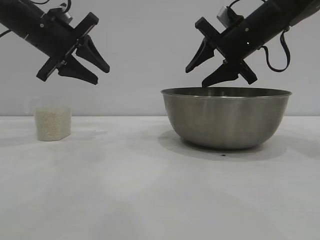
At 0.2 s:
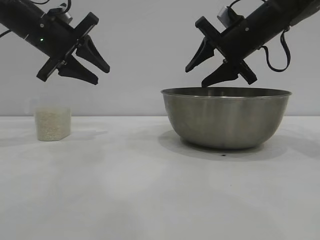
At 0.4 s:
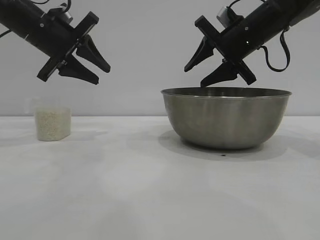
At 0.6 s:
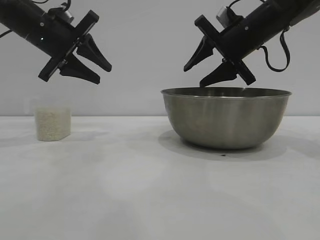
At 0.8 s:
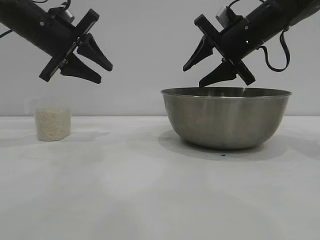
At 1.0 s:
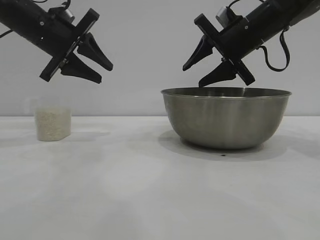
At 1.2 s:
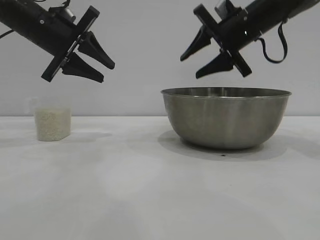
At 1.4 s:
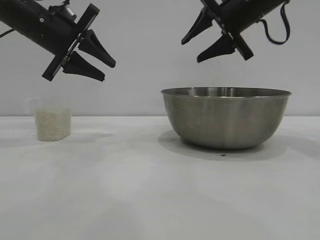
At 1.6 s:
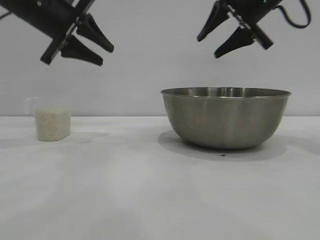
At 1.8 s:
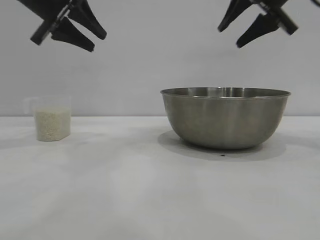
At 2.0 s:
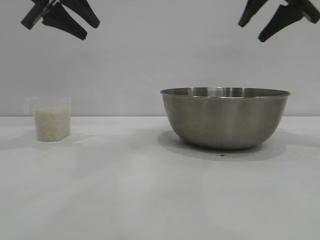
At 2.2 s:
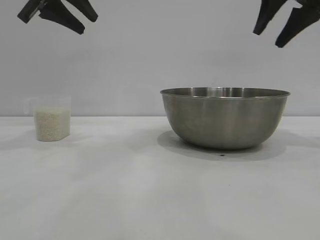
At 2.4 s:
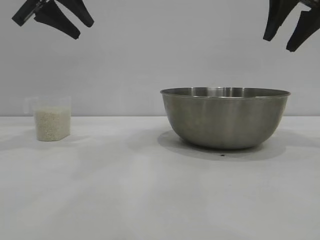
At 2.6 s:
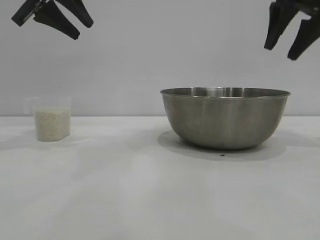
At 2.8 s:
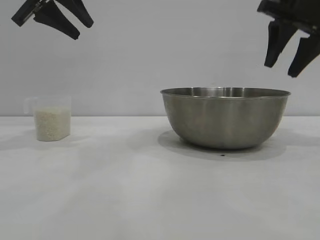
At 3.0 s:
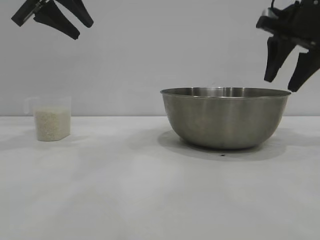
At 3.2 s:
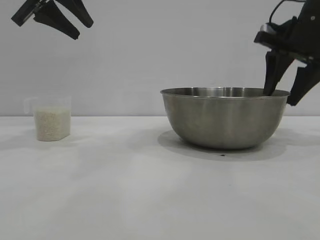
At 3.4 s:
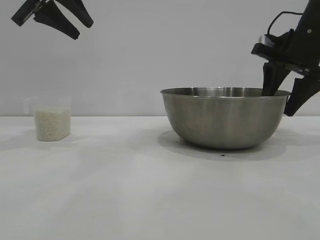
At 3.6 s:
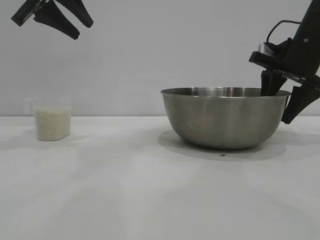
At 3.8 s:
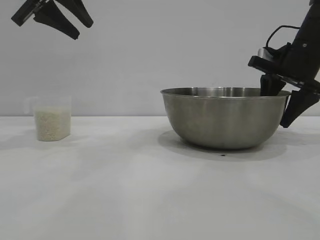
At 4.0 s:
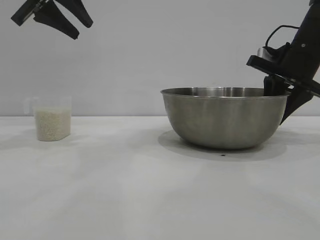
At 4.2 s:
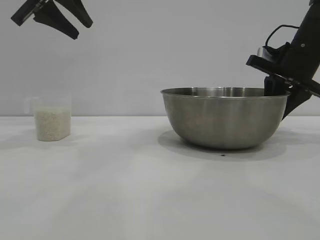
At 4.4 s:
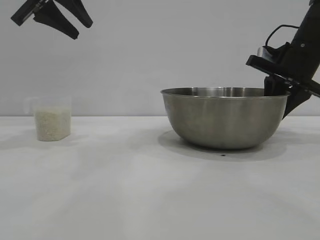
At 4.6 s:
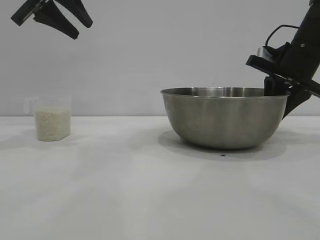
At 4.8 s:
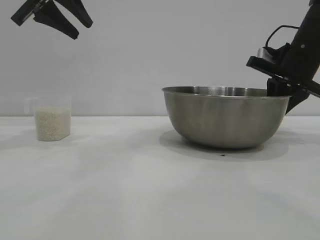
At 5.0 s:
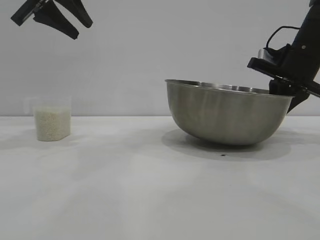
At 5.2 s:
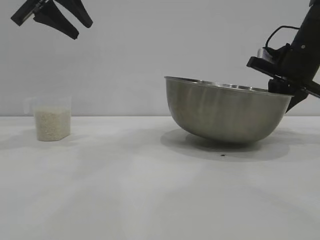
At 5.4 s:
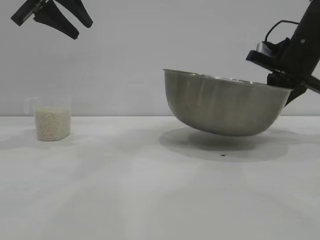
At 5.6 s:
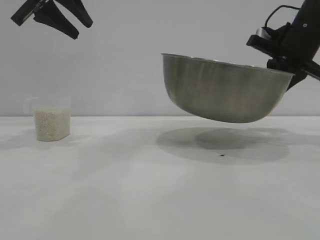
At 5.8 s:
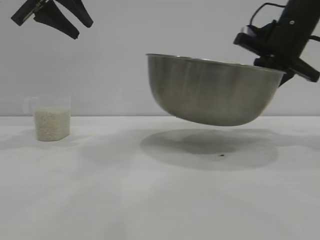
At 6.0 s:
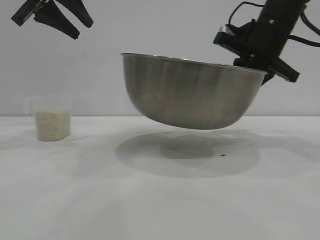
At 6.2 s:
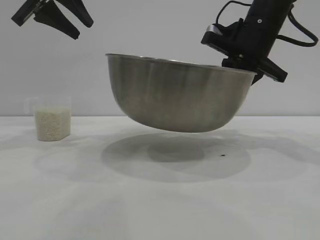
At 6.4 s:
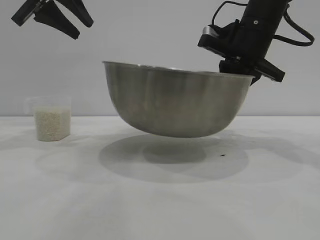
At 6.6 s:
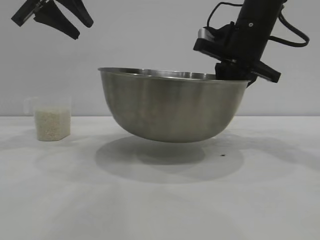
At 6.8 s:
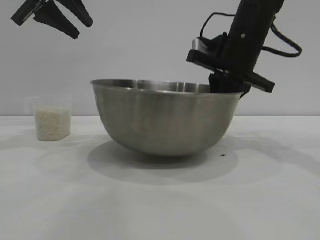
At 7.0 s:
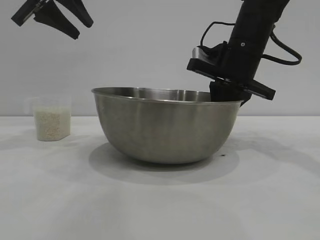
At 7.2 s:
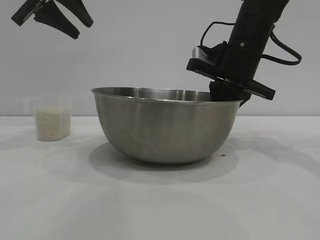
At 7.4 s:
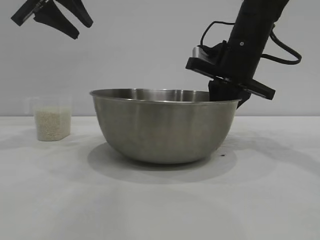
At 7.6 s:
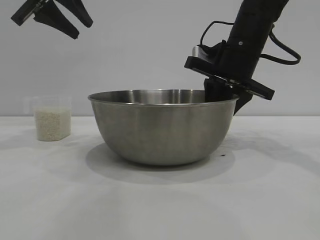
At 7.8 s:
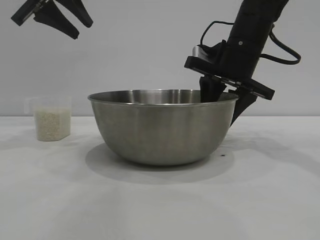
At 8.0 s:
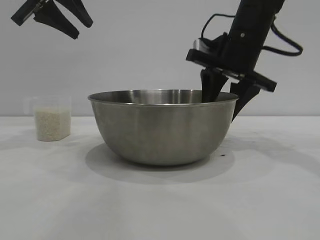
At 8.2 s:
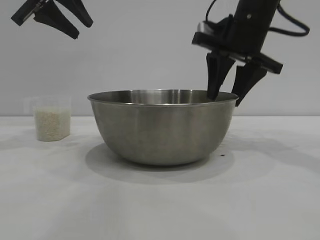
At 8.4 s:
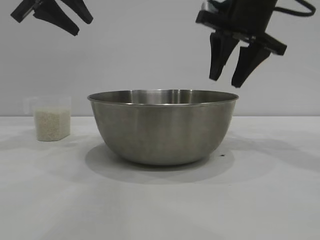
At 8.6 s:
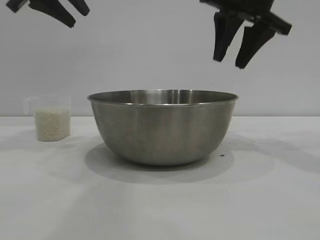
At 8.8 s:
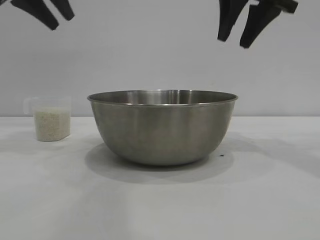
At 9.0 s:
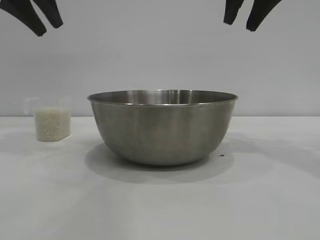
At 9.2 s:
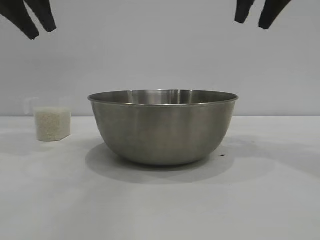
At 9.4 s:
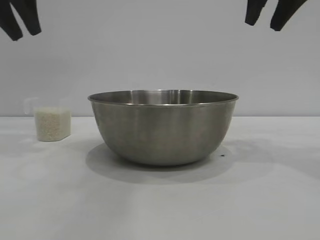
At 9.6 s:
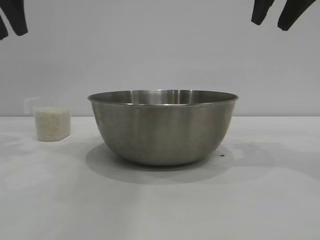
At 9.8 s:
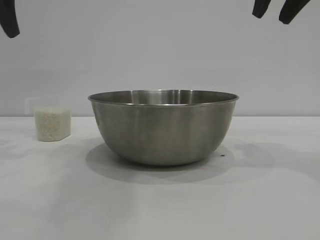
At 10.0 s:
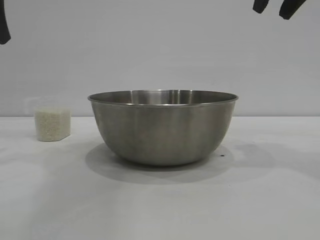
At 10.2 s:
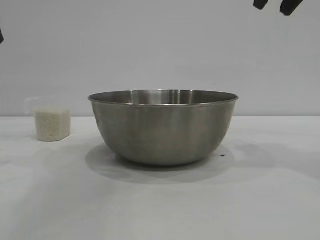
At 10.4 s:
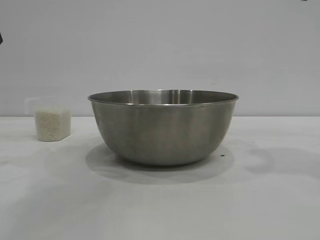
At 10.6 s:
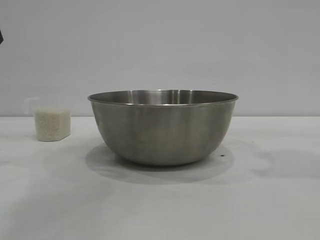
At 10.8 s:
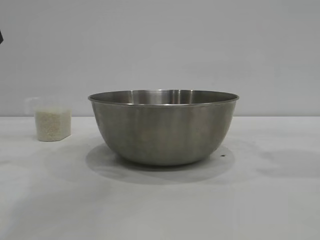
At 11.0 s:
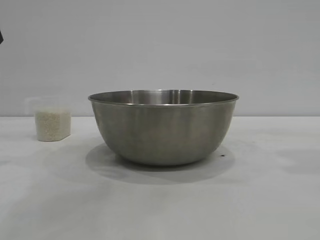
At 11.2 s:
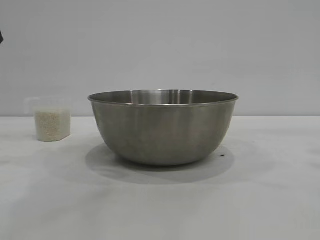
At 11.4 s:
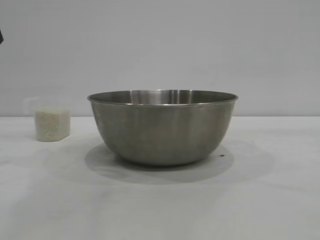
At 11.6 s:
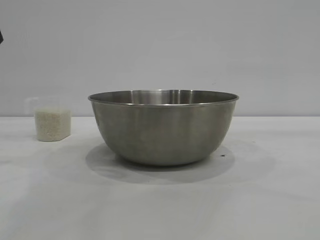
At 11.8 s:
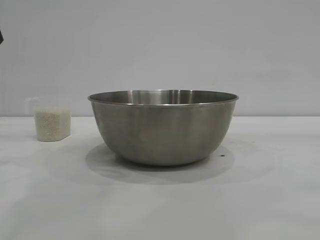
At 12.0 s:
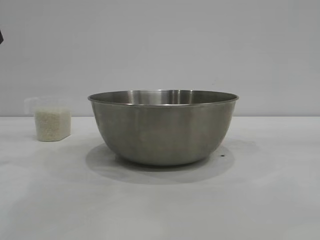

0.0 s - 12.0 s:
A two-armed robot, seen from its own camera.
Task of the whole recording: the right gripper grasp the rice container and place it in the center of the table, the left gripper grasp the rice scoop and pour the rice into the rice container.
Step, 0.0 s - 5.4 s: Pick up the bowl with the right gripper.
Step, 5.6 s - 8.2 s: Place the bowl in the center of view with the right gripper.

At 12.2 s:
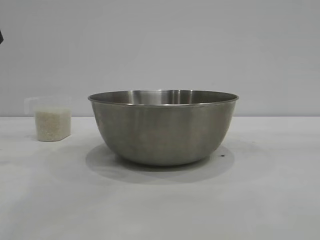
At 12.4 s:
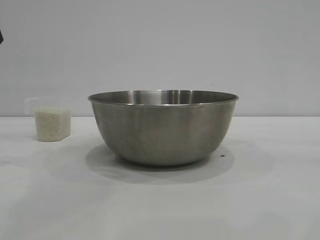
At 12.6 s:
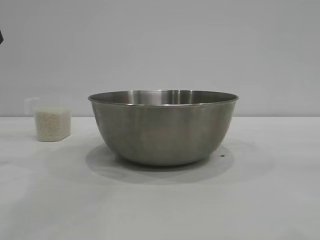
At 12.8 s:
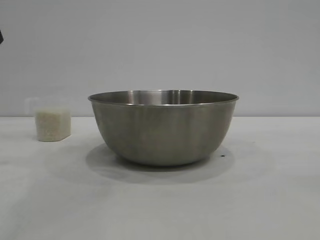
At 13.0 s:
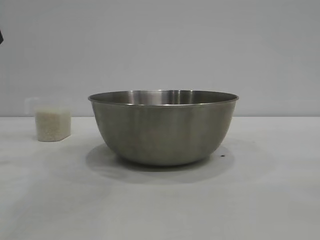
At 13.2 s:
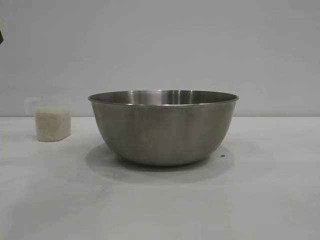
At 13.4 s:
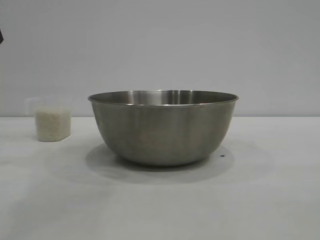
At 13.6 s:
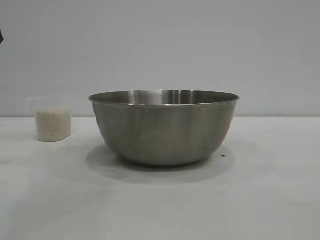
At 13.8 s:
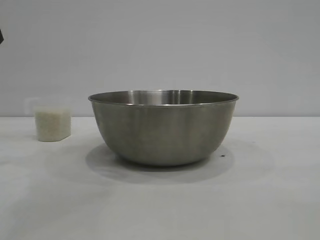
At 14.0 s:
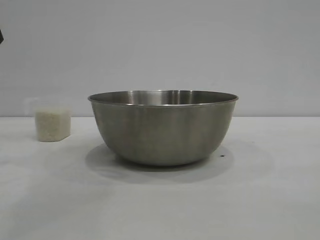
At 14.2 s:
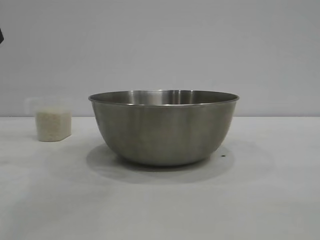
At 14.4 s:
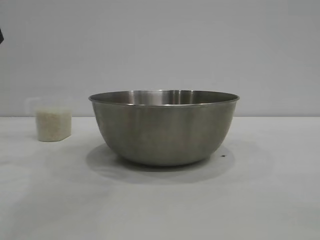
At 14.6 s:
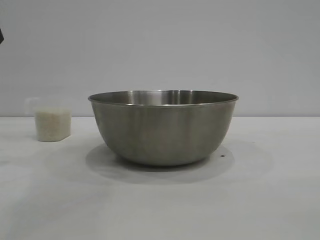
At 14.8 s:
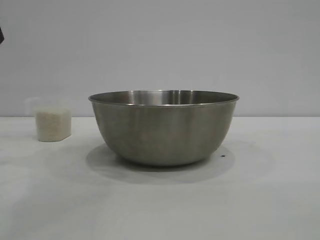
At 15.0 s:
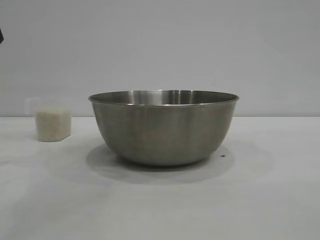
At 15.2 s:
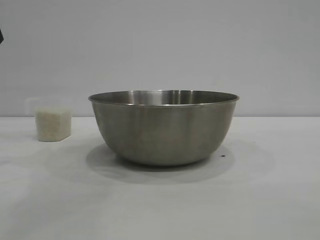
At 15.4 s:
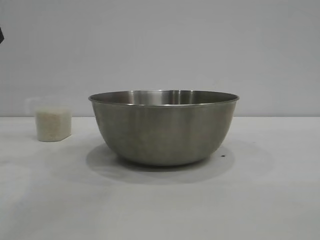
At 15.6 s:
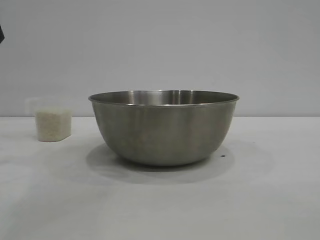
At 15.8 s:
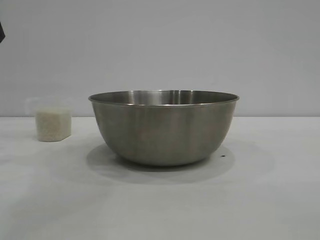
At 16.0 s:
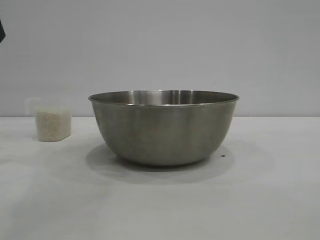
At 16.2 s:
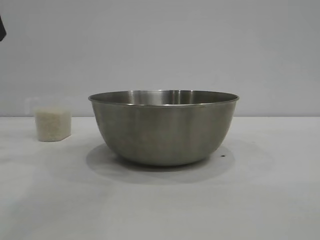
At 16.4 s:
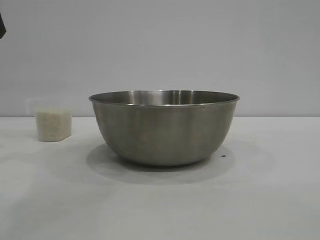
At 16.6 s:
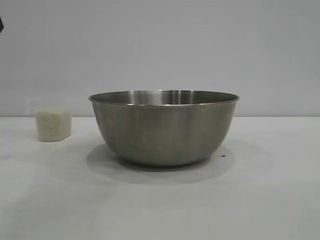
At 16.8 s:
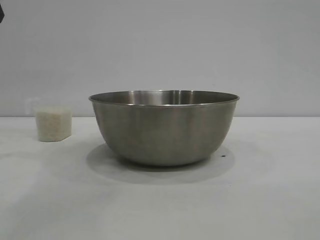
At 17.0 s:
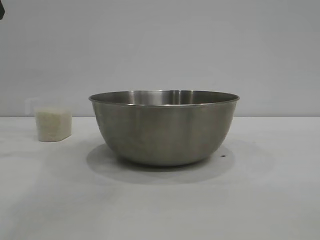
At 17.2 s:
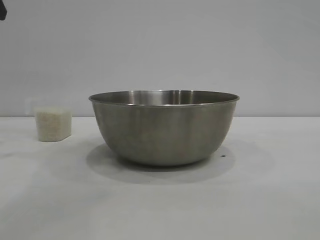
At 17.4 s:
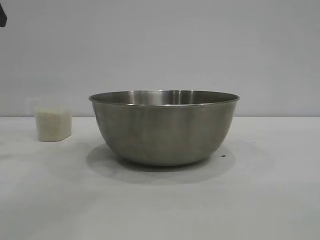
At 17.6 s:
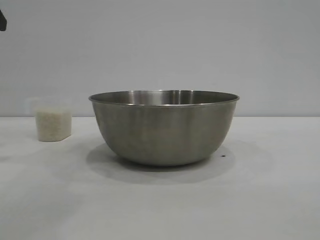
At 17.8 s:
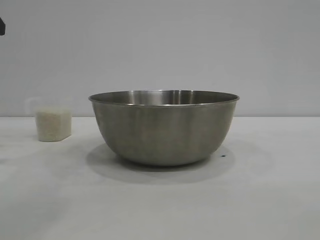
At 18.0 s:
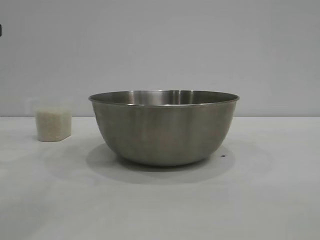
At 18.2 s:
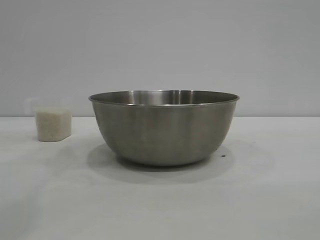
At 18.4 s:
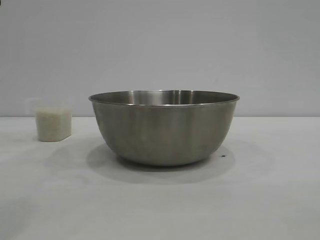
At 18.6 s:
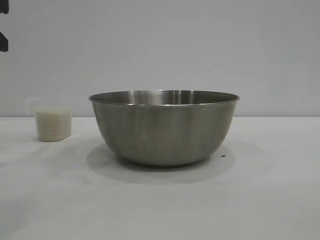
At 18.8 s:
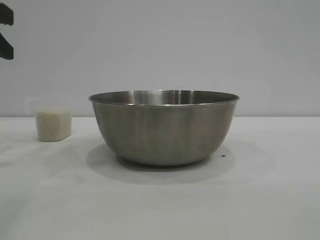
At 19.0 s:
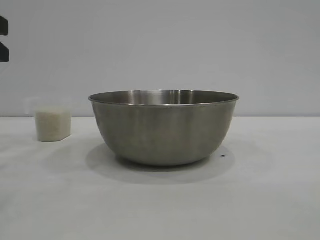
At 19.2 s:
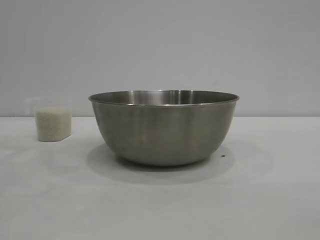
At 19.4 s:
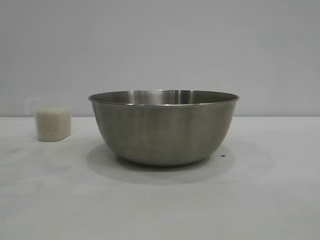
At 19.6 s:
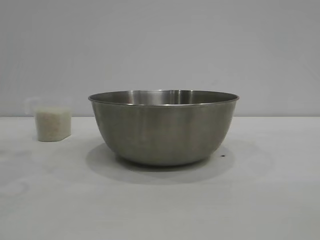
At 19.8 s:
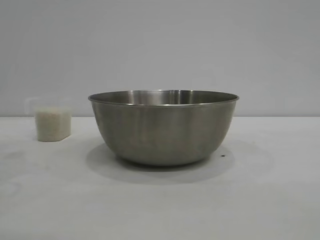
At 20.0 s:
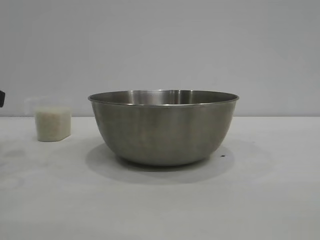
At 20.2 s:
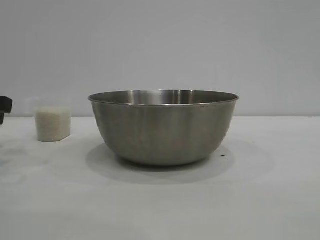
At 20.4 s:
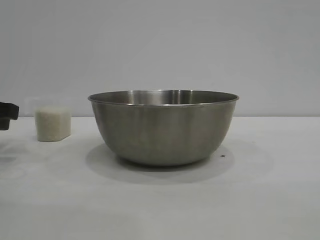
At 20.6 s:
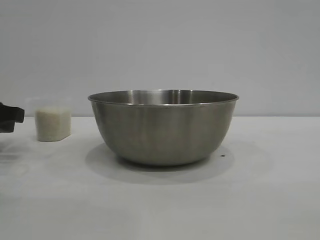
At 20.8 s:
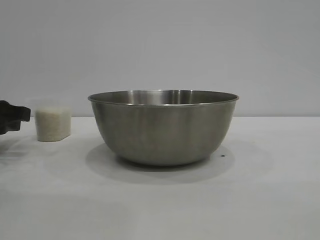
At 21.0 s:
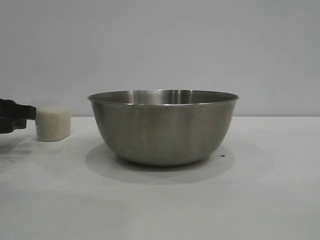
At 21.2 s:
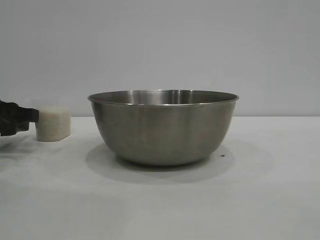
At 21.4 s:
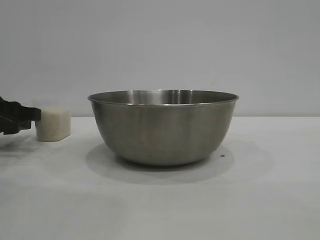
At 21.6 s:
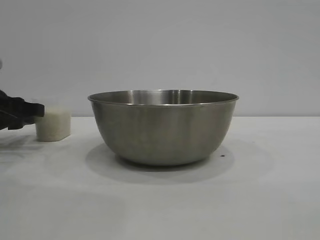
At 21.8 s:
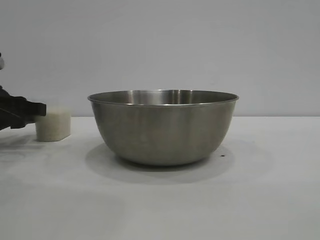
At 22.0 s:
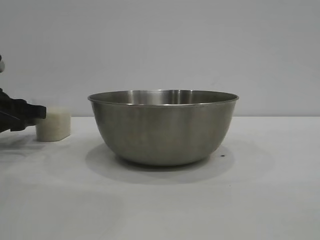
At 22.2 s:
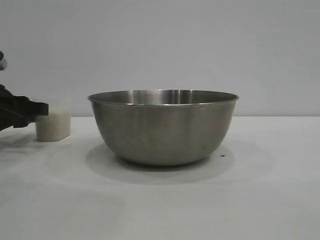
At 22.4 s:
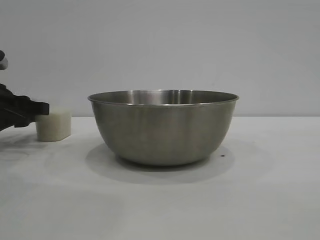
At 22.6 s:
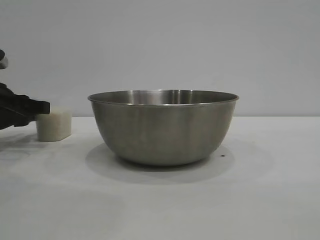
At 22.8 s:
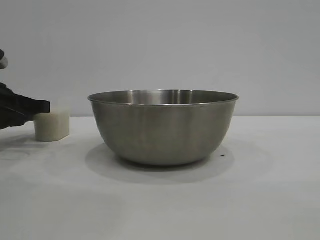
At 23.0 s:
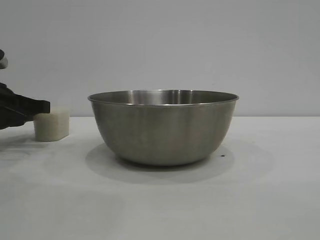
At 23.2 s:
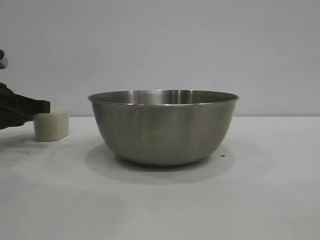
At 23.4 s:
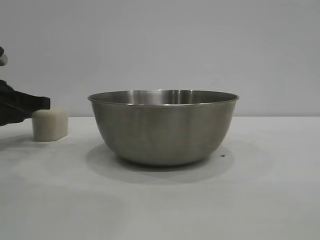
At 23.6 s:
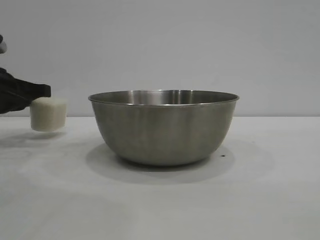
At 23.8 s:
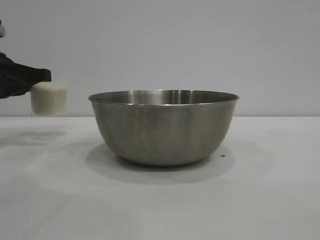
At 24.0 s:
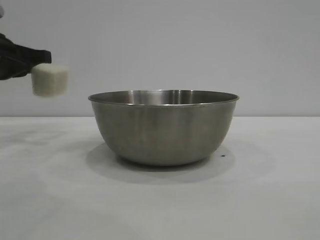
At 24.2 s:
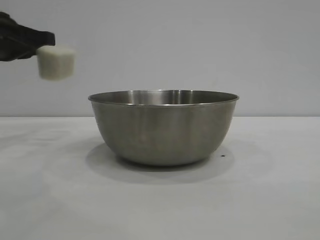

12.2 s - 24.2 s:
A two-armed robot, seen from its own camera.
Task of the whole recording: the right gripper grasp the rice container and place it in the center of the table, the left gripper grasp the rice scoop and pour the rice into the rice container.
Step, 12.2 s - 23.8 s: Pick up the cup with rice in it with the left gripper.
